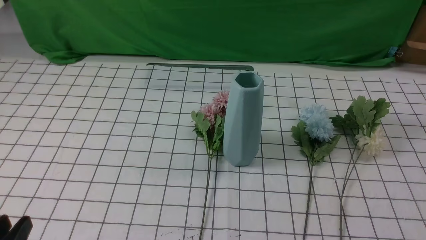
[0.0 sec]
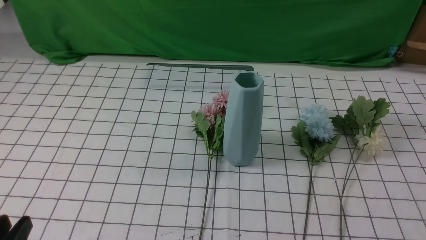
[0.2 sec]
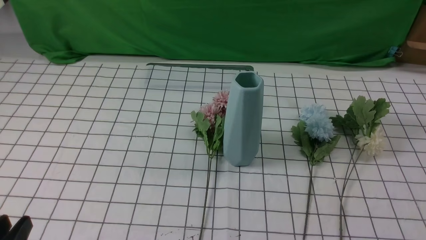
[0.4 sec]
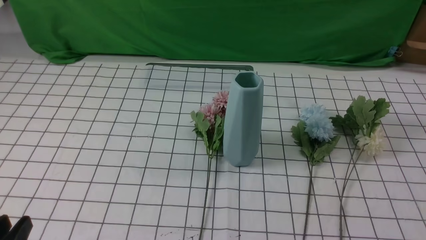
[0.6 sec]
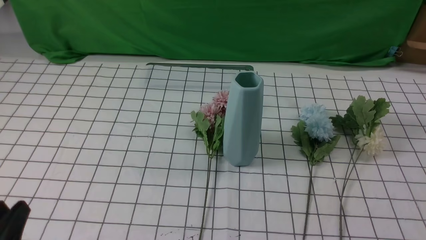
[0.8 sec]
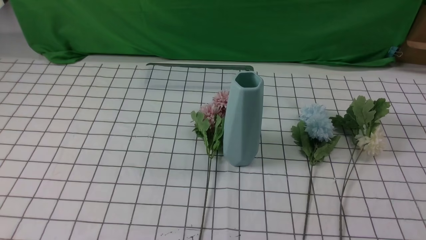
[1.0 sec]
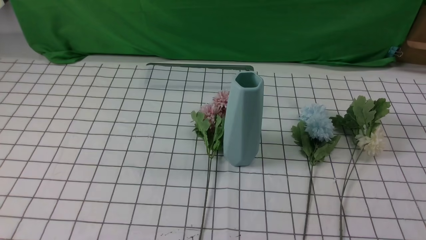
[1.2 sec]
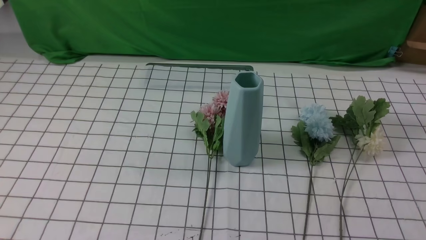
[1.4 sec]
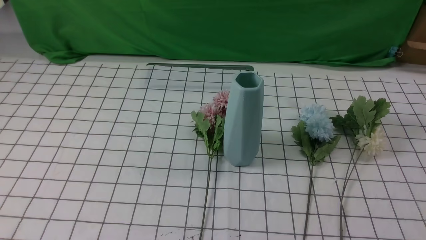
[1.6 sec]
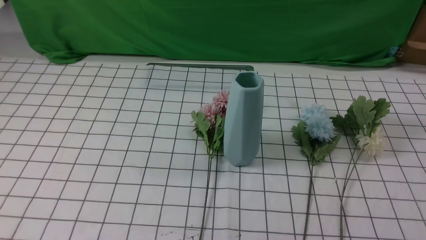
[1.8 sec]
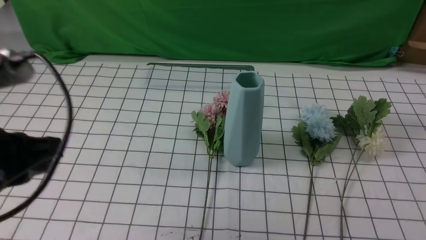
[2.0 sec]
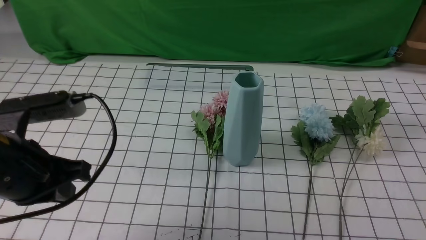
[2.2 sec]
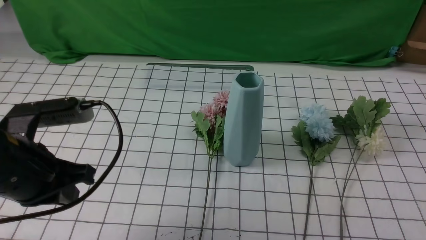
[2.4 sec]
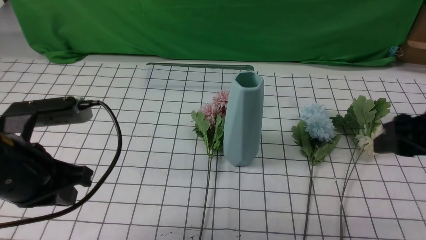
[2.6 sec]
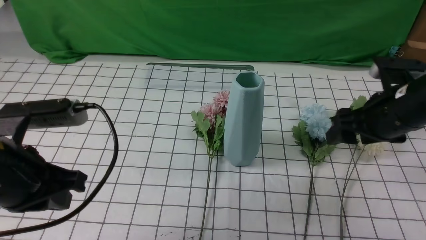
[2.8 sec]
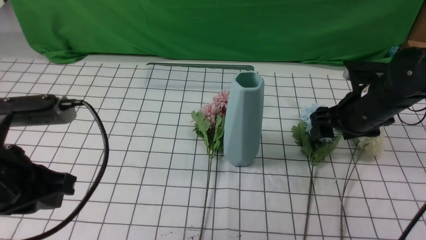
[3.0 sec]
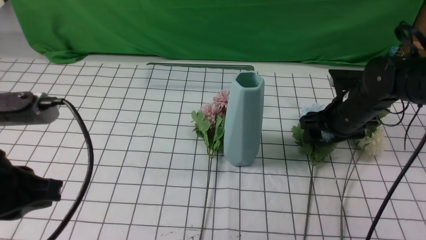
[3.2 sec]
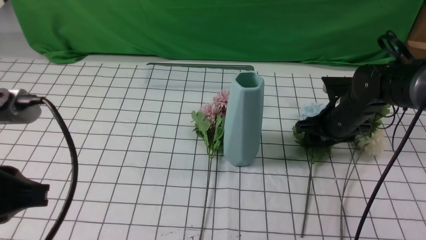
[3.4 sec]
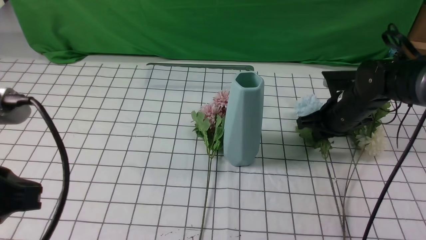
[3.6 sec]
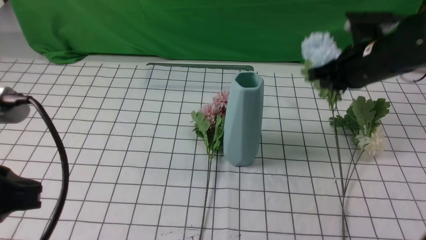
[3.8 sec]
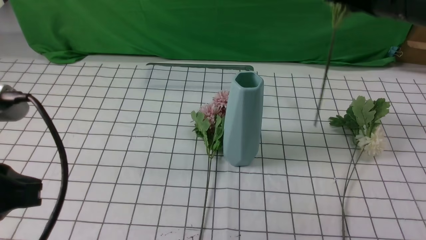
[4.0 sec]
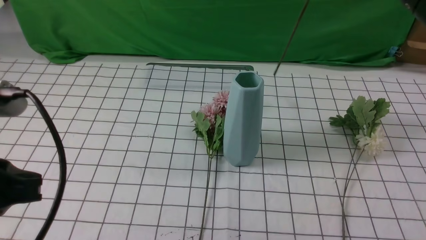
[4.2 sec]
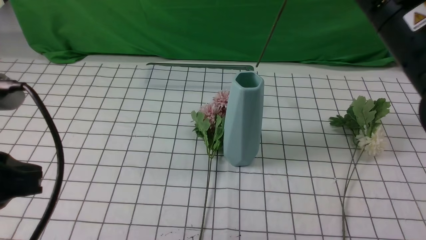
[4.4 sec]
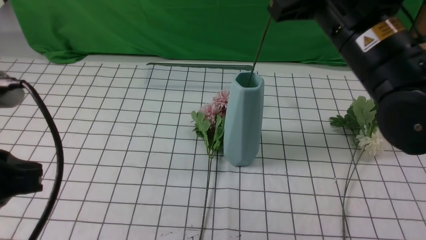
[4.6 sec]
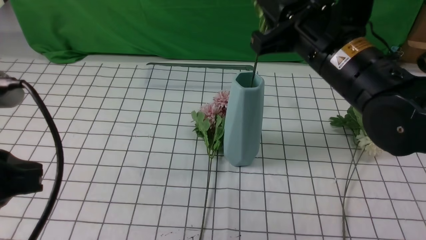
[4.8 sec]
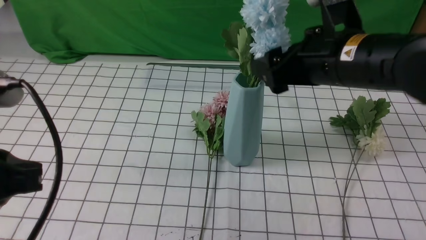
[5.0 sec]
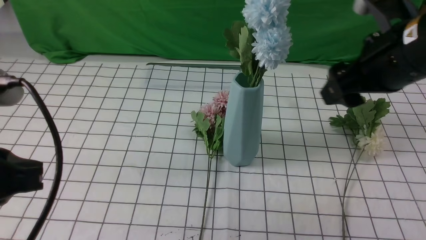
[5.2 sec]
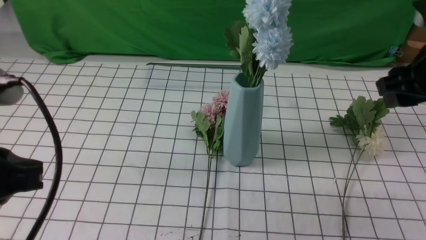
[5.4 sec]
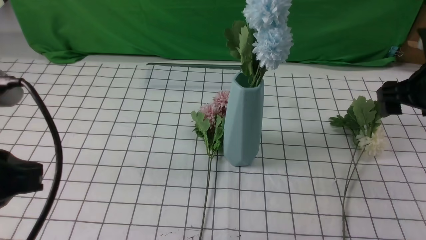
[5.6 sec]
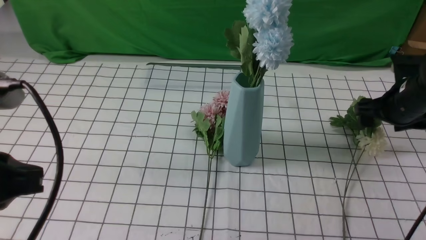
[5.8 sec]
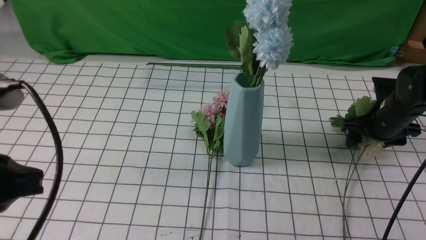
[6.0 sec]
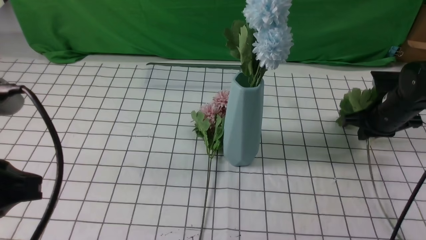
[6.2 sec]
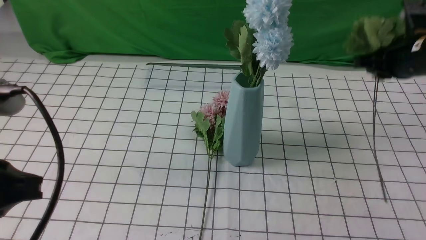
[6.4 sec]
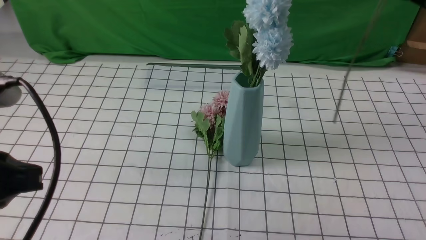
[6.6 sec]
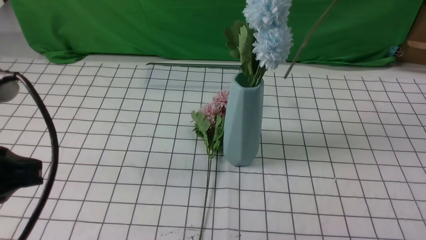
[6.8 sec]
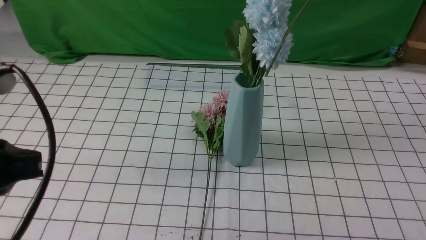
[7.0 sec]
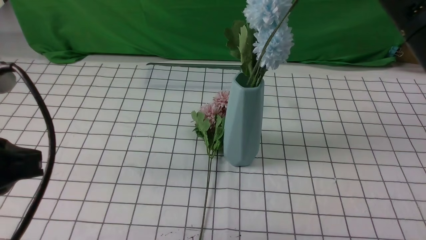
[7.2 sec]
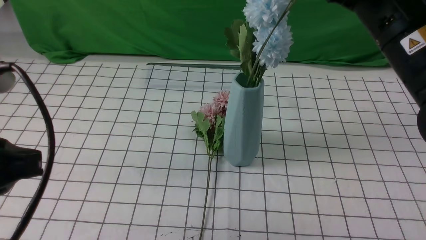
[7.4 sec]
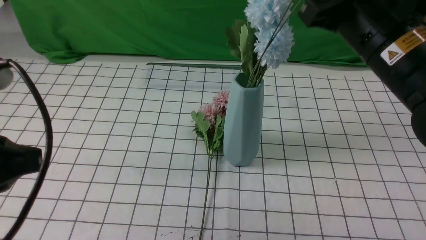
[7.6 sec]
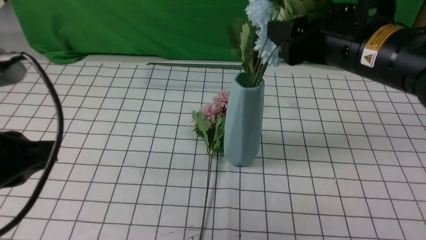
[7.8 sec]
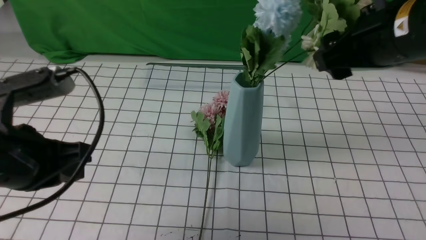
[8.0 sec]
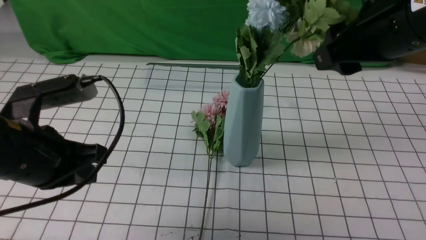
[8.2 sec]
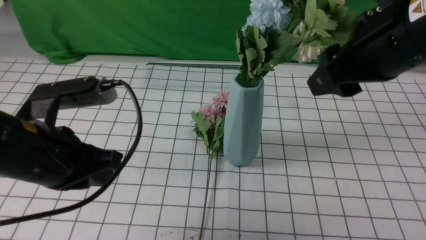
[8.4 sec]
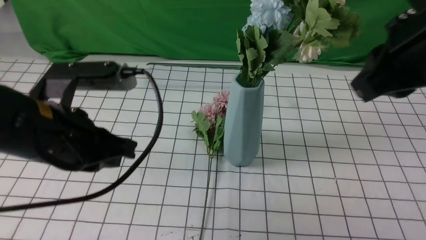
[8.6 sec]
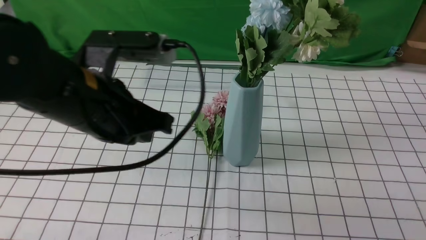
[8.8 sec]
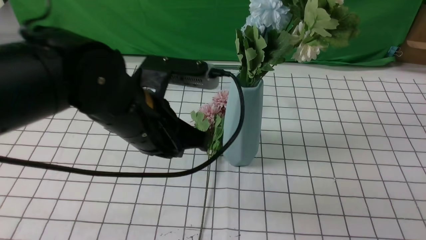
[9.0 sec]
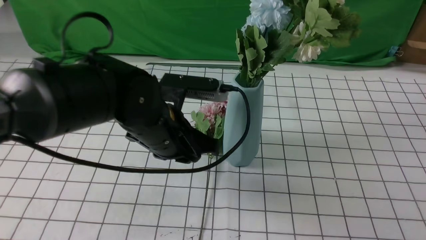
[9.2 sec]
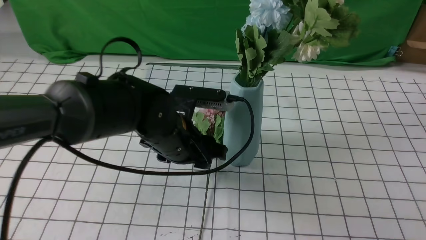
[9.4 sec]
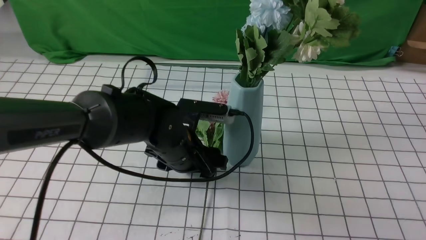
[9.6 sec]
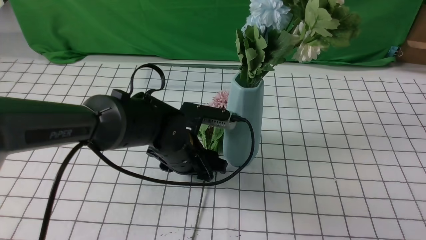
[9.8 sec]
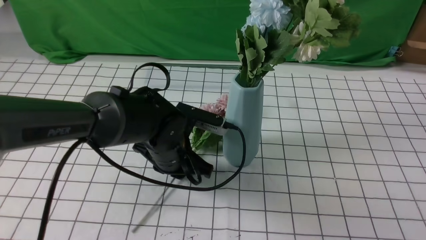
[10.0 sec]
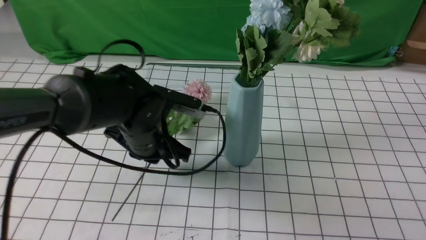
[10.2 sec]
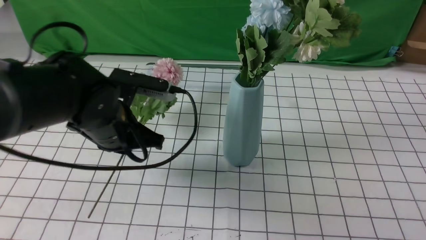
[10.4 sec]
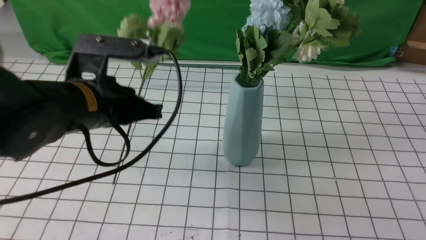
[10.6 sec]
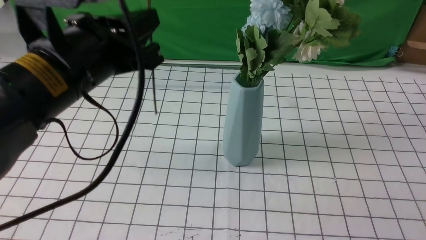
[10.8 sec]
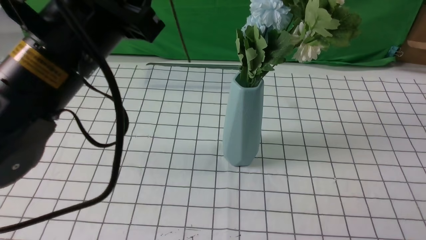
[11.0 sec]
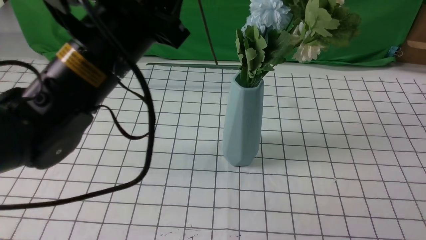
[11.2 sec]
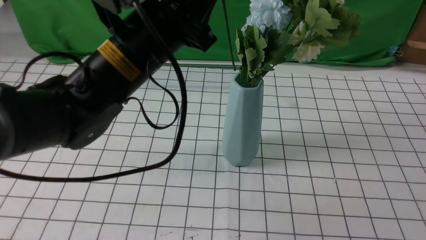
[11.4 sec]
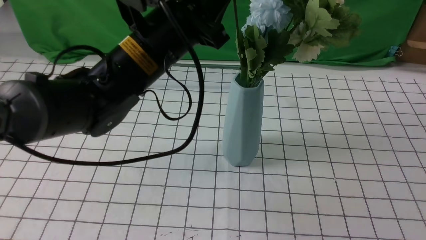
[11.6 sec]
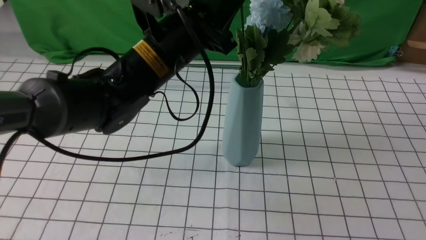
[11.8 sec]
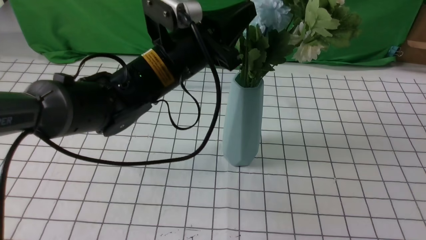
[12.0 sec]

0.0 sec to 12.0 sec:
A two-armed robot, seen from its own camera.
Task of the whole recording: insert the flowers into the vase on the table with the white tablecloth.
Step, 0.0 sec to 3.6 sec: use the right arm to grab a bunch of fresh flowers.
Step, 3.8 sec to 5.0 sec: use the right arm to insert the flowers into the vase.
Step, 5.2 sec to 6.2 sec: use the right arm to grab a bunch of fresh flowers.
Step, 6.4 sec to 8.4 sec: use the right arm to insert the flowers into the vase.
Step, 8.6 sec to 10.2 sec: use the left arm to grab a bunch of fresh flowers.
0.0 sec to 1.6 sec: The left gripper travels upward by some 15 cm, and closes its fingers.
1.6 sec to 3.0 sec: The right gripper travels forward by roughly 30 cm, and opens, while the left gripper heads forward, covering roughly 10 cm.
3.0 sec to 4.4 sec: The right gripper shifts approximately 20 cm upward and backward, and closes its fingers. The left gripper ends up roughly 5 cm from where it was.
4.4 sec to 6.0 sec: The right gripper goes some 30 cm downward, to the right and forward, and opens up.
6.0 sec to 7.6 sec: The right gripper goes roughly 25 cm upward, to the left and backward, and closes, then reopens.
7.6 sec to 9.0 sec: The left gripper travels to the right and forward by some 20 cm. The right gripper is displaced to the right and backward by roughly 15 cm, and closes its fingers.
9.0 sec to 10.4 sec: The left gripper travels downward and back again, roughly 10 cm each way, and opens, then closes once more.
10.4 sec to 12.0 sec: The left gripper heads to the right, covering some 5 cm.

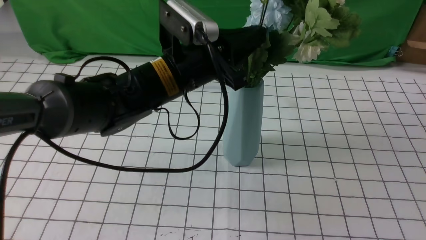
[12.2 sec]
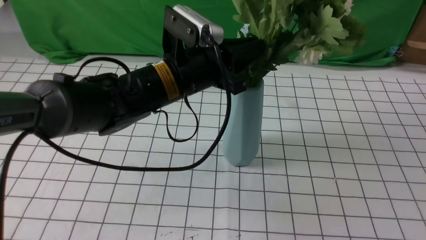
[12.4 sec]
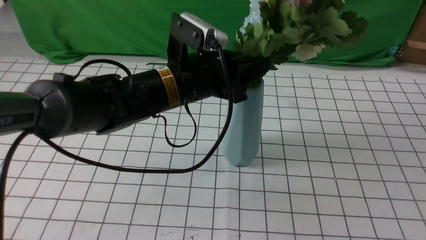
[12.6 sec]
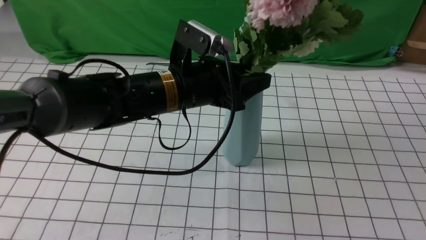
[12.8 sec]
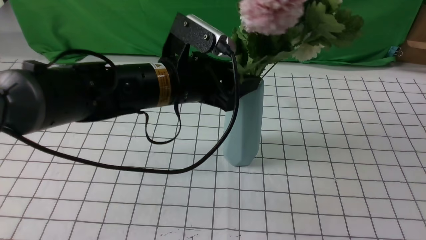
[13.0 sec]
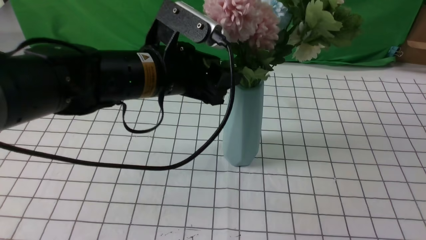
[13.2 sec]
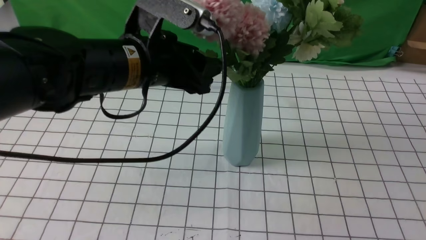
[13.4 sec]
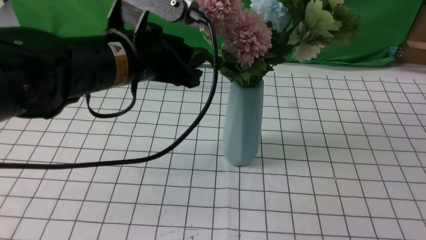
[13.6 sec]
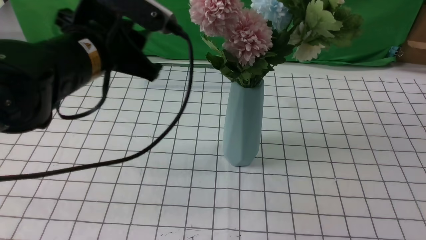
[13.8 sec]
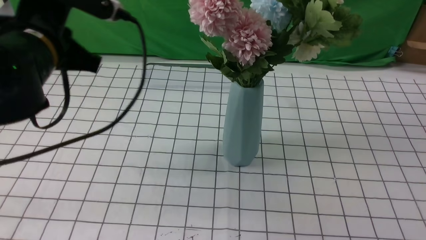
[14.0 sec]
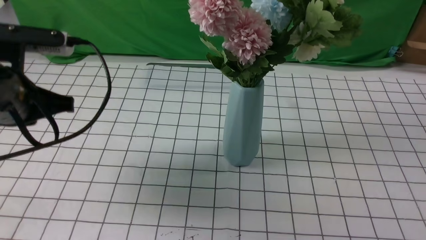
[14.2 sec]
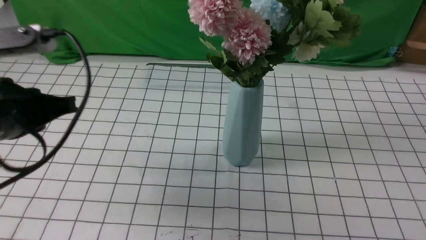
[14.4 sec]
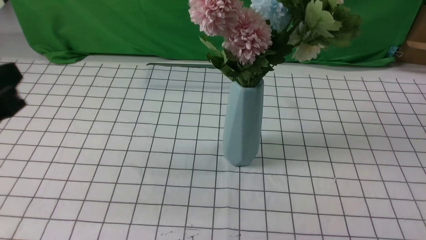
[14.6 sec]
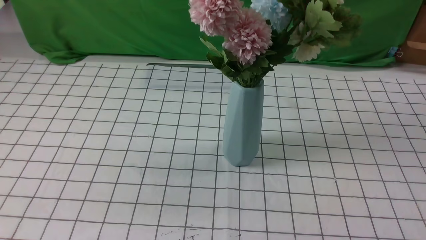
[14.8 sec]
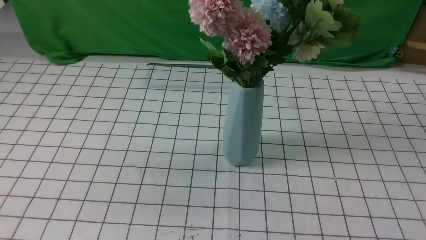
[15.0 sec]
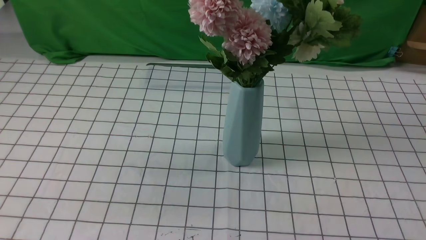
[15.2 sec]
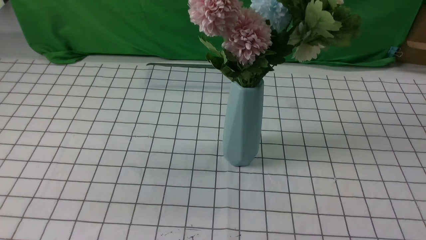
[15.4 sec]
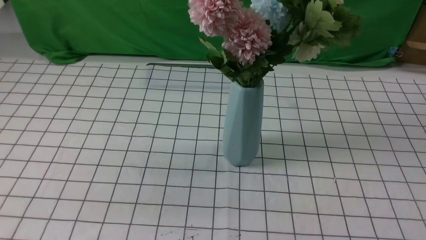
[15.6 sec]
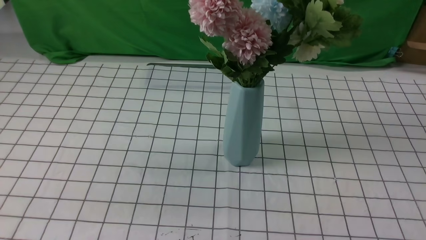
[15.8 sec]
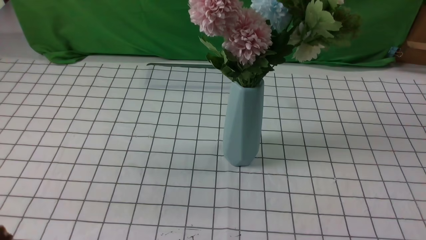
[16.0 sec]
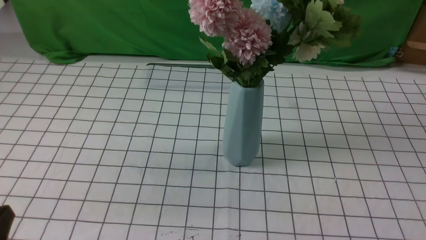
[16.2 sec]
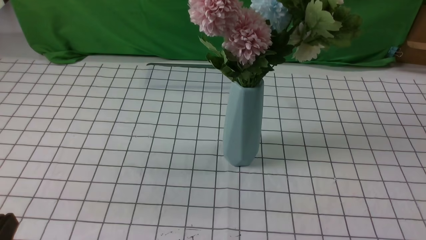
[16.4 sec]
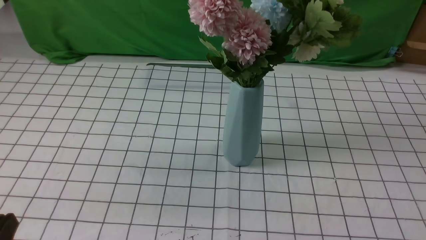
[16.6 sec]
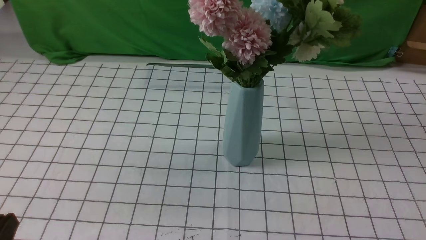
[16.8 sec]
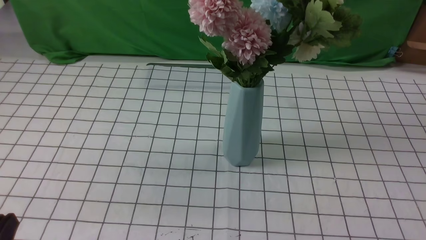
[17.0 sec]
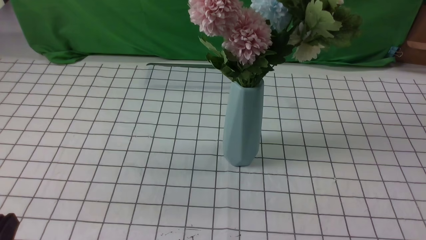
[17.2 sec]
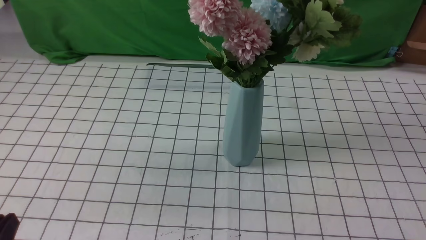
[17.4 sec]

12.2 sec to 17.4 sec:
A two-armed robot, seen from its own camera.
Task of the whole recording: insert the flowers into the vase on the table with the white tablecloth.
12.2 sec to 14.0 sec: The right gripper travels backward by approximately 5 cm. The left gripper is displaced to the left by some 15 cm, and opens, then closes once more.
14.0 sec to 15.6 sec: The left gripper shifts some 20 cm backward.
